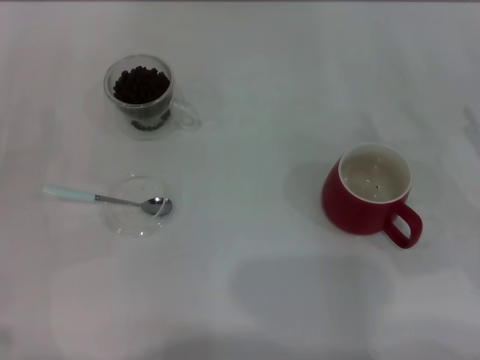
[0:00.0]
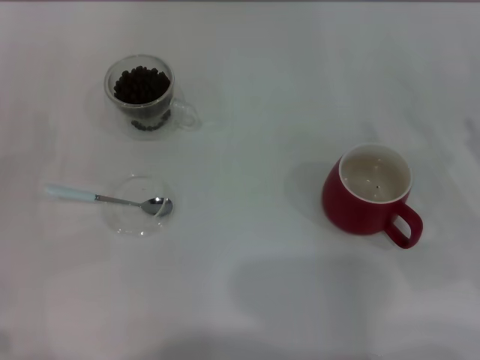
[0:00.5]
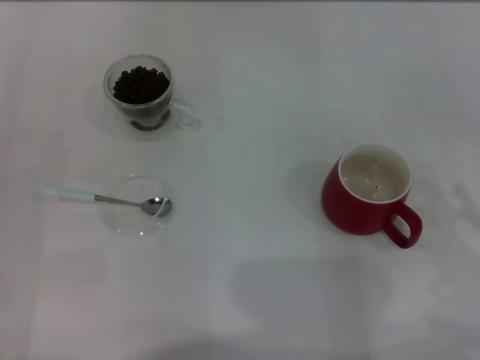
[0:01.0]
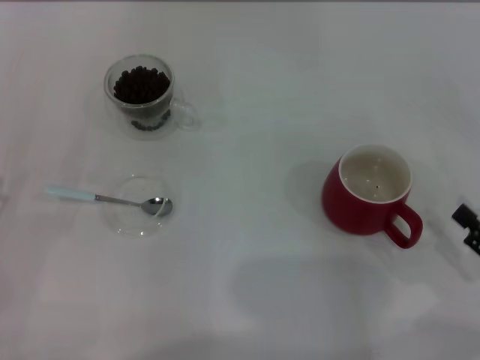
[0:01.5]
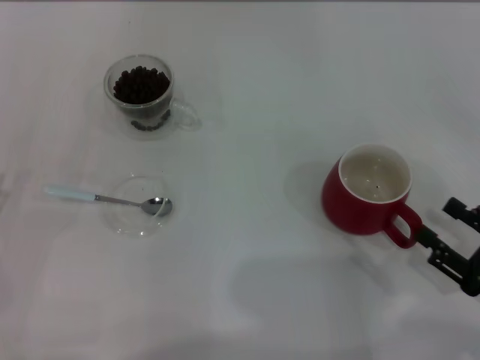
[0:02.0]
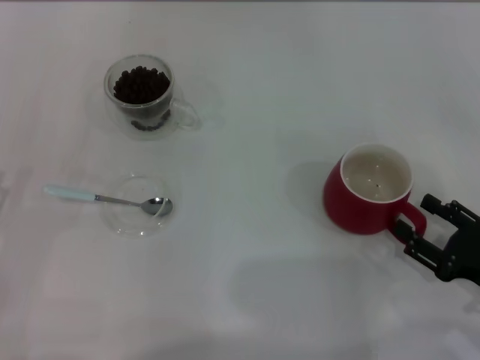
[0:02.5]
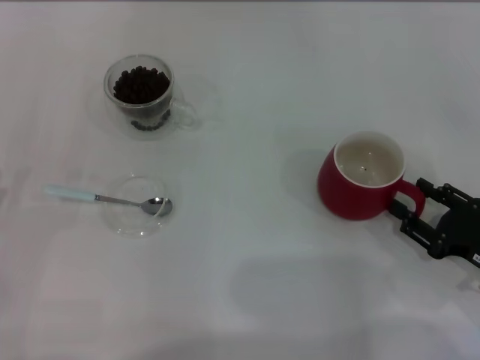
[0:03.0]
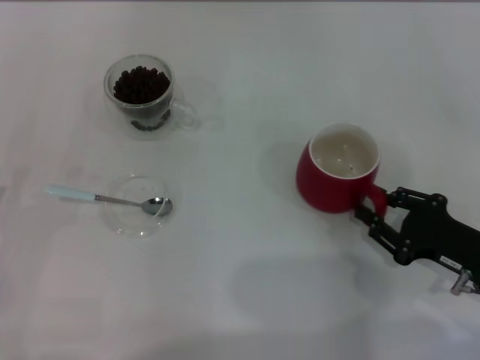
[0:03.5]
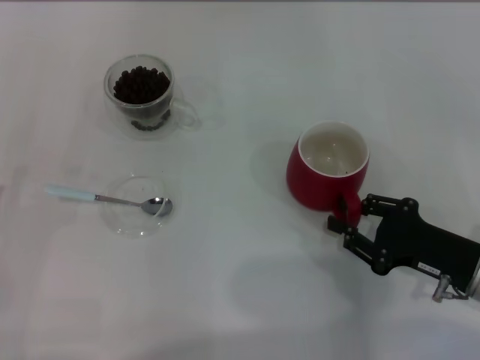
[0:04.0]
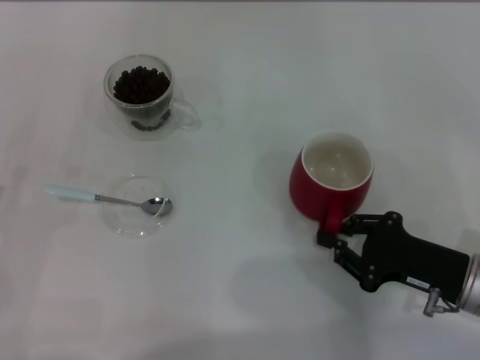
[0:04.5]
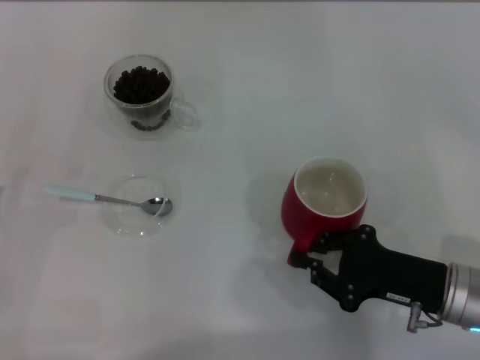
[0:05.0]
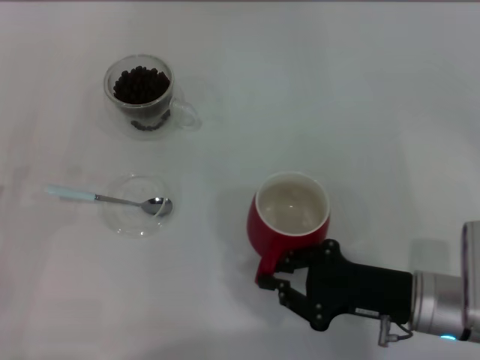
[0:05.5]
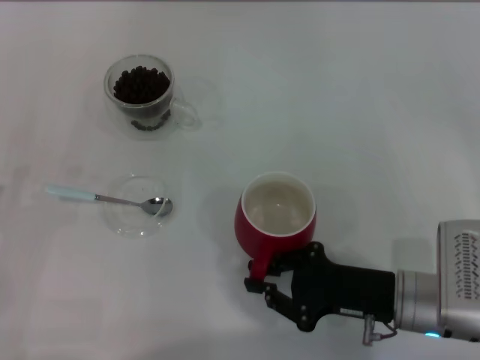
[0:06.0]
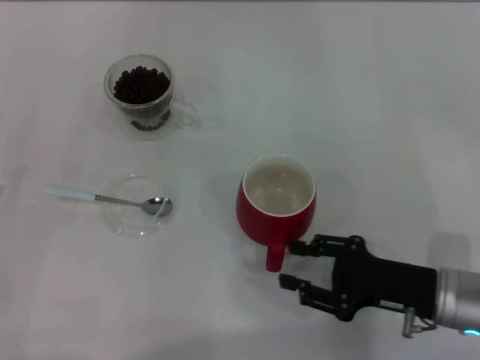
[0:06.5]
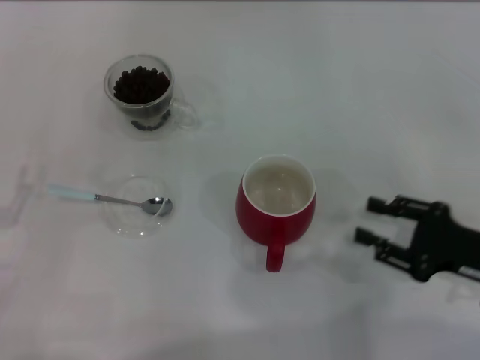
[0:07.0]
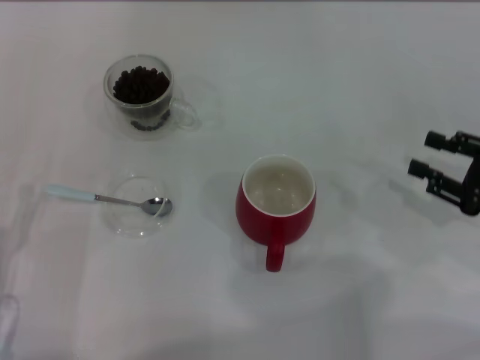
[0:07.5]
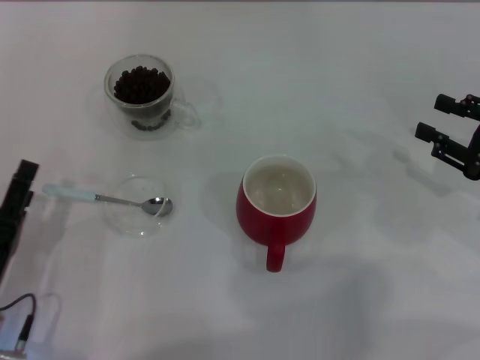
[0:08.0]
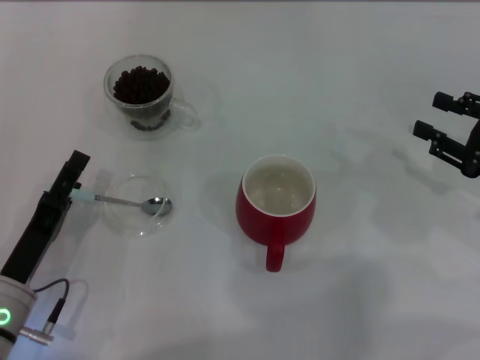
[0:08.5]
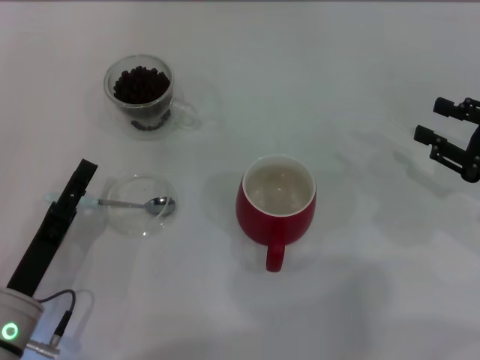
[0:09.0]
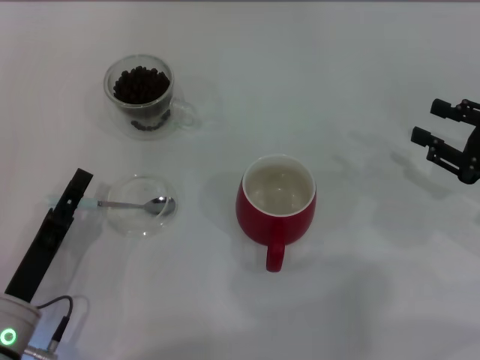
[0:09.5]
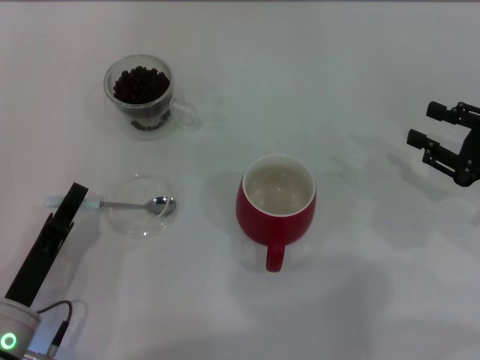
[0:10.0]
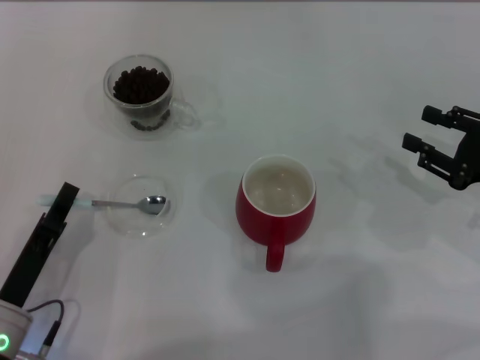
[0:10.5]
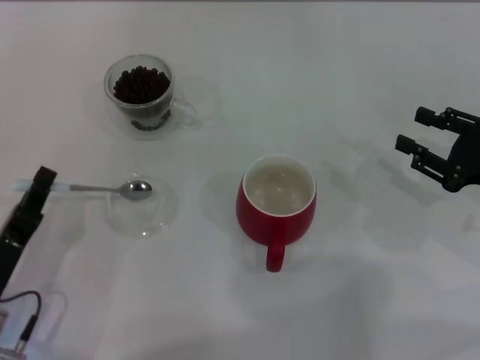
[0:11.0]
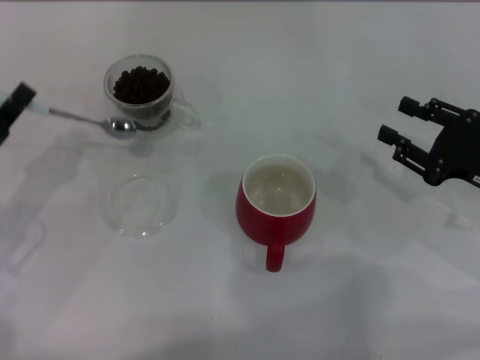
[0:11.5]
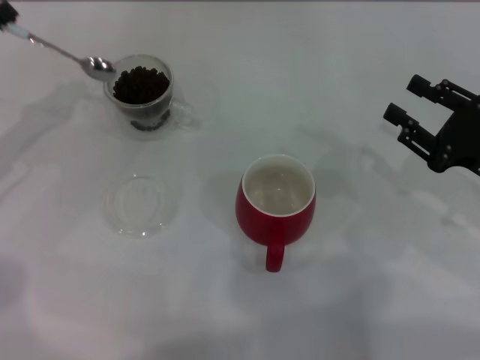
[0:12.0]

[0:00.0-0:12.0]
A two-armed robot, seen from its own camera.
Task of the whole recording: Use a blue spoon to take out the coffee beans from the glass and pour them into the red cup.
Step, 0:00.0 to 0:06.5: Move the cup to the center of view with the left gripper.
Step, 0:07.0 to 0:11.0: Pick up the spoon with the right gripper.
0:00.0 to 0:02.0: The right gripper shifts some 10 cm backward.
0:02.0 to 0:04.0: The right gripper moves forward and to the left, roughly 10 cm, and closes its fingers.
0:04.0 to 0:06.0: The right gripper moves to the left, approximately 5 cm.
0:06.0 to 0:08.0: The left gripper goes about 10 cm to the right. The right gripper shifts roughly 15 cm to the right, and opens up.
0:08.0 to 0:10.0: The left gripper closes.
0:10.0 to 0:12.0: The left gripper travels forward, upward and to the left by approximately 25 cm.

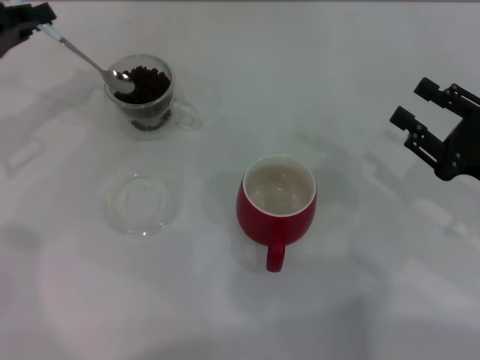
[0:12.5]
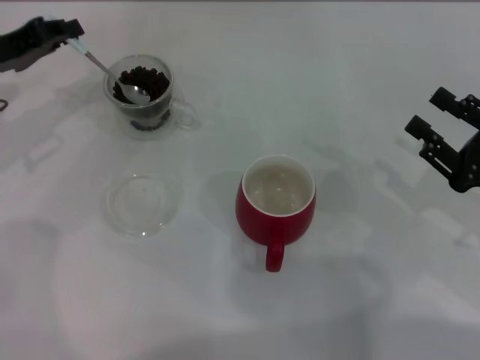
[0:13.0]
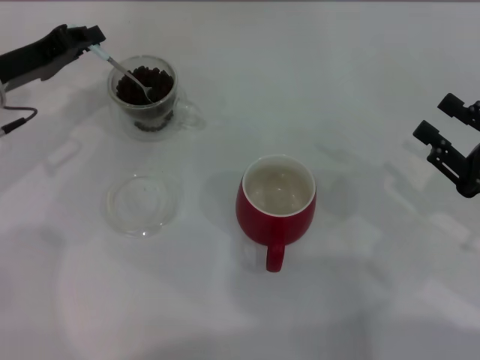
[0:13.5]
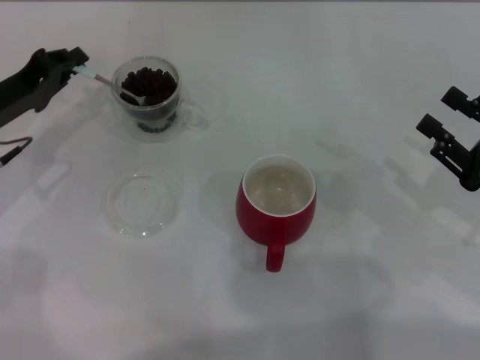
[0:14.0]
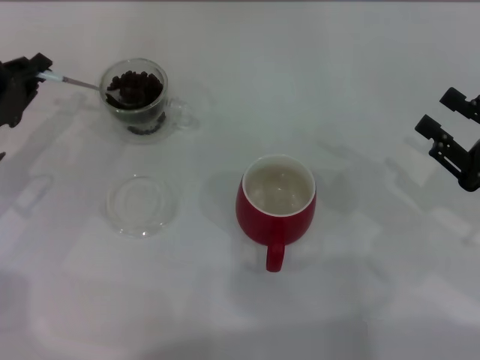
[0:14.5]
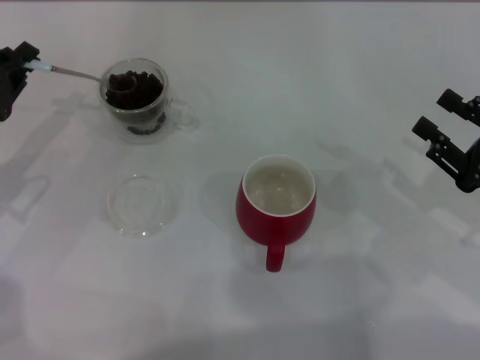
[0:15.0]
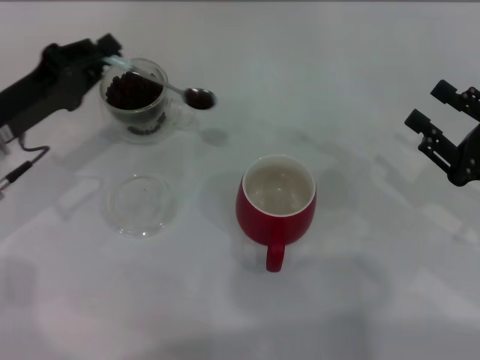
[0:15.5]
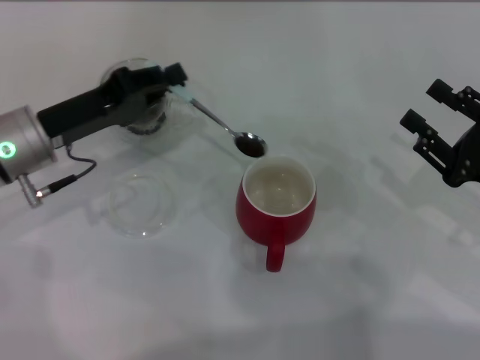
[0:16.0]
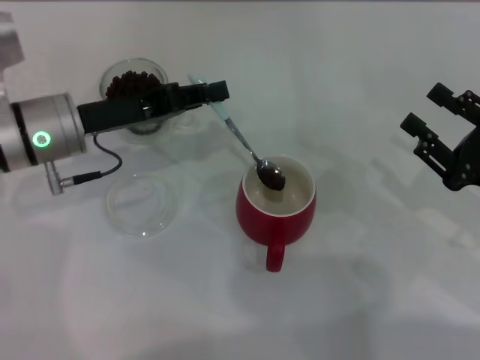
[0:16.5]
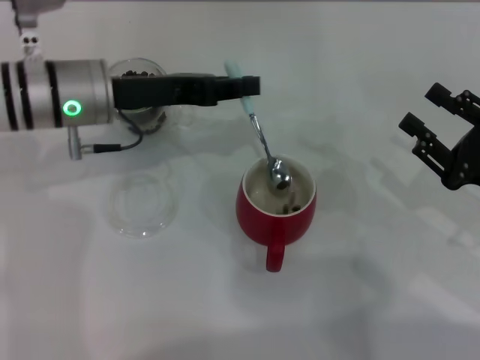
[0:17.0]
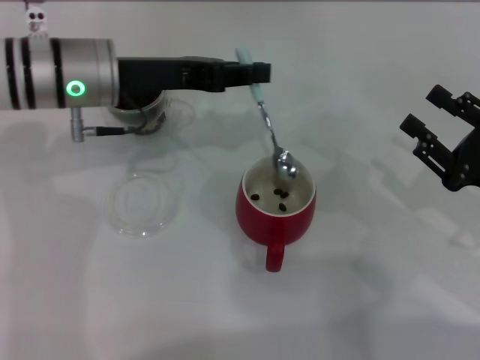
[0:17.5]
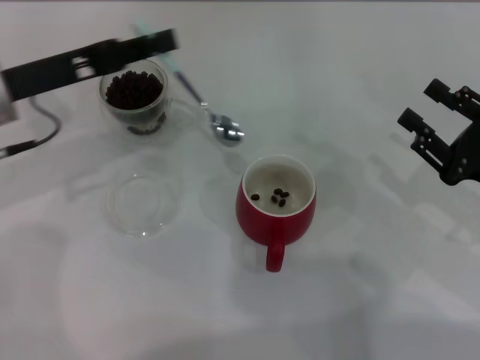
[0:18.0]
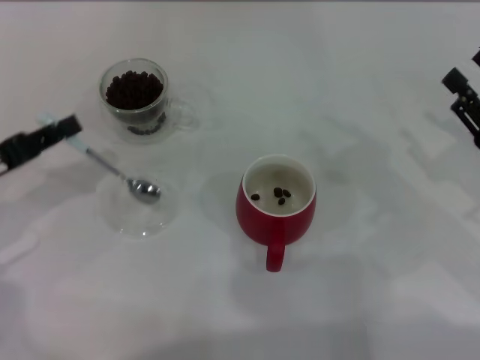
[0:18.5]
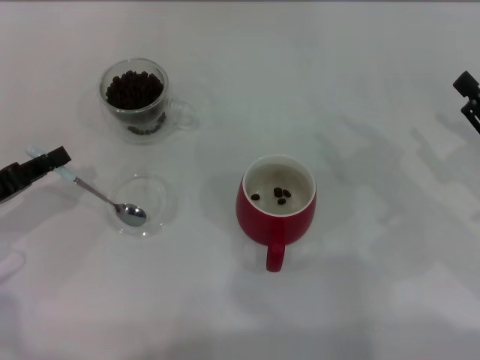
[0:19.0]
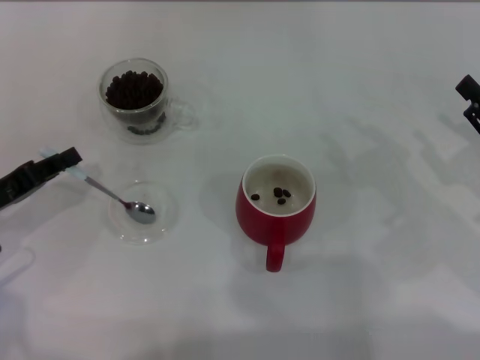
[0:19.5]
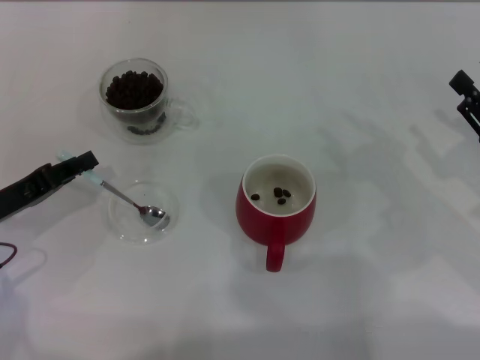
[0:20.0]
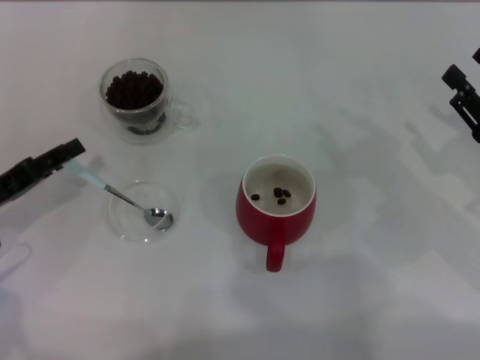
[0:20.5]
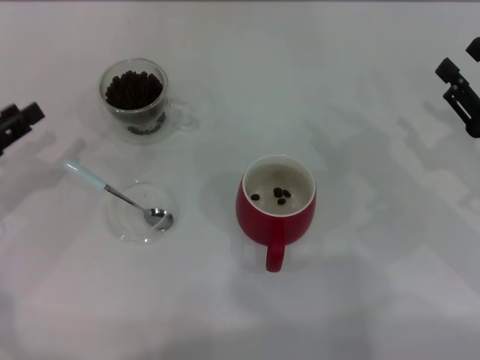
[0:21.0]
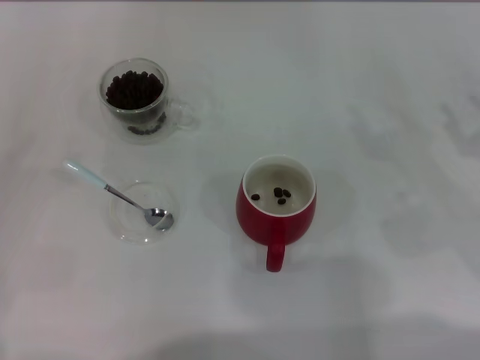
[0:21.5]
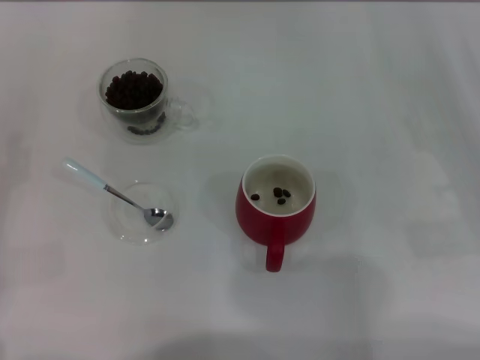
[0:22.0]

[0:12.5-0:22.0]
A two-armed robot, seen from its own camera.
Task of the whole recording: Use a blue spoon to take out the coffee beans from the glass and pour them into the red cup.
Step, 0:12.5 to 0:17.0: Scoop a spoonful of beans into the cup with the right gripper.
Step, 0:17.5 to 0:20.5: Place the spoon back in its original place with the right gripper.
0:12.5 to 0:14.5: The left gripper heads downward and backward, covering about 10 cm.
0:14.5 to 0:16.5: The left gripper travels to the right by roughly 10 cm.
0:16.5 to 0:18.0: The left gripper shifts by approximately 5 cm.
0:18.0 to 0:20.0: The left gripper shifts about 15 cm downward, backward and to the left.
0:20.0 to 0:22.0: The left gripper goes about 10 cm to the left, and opens its fingers.
